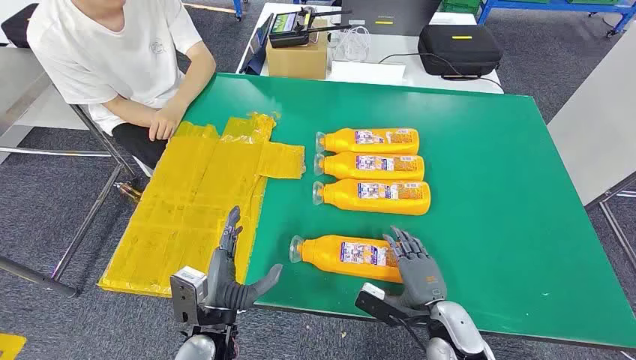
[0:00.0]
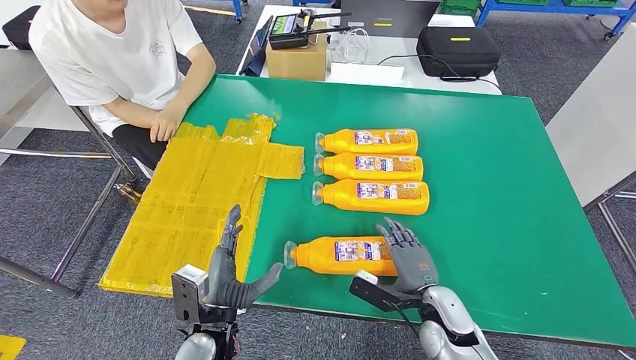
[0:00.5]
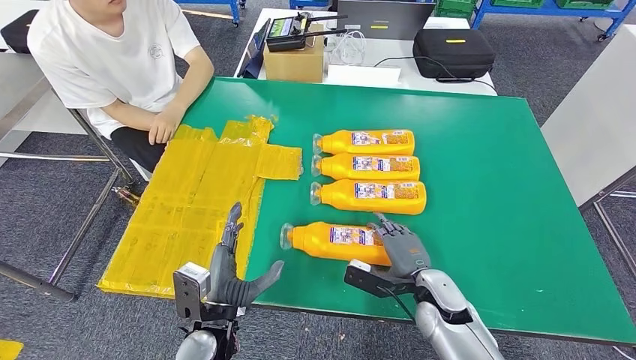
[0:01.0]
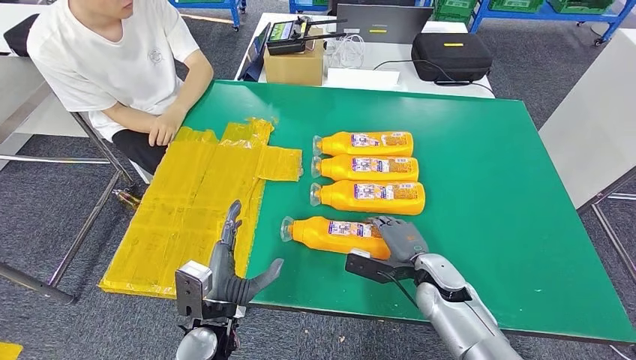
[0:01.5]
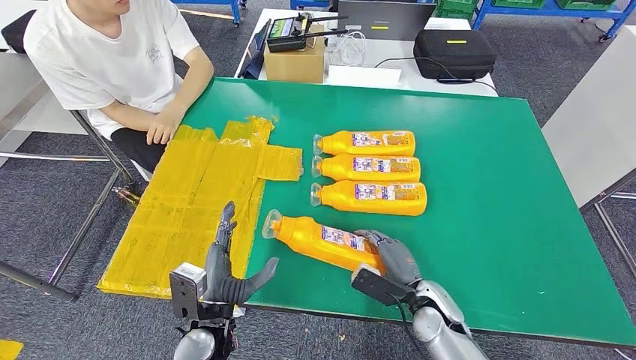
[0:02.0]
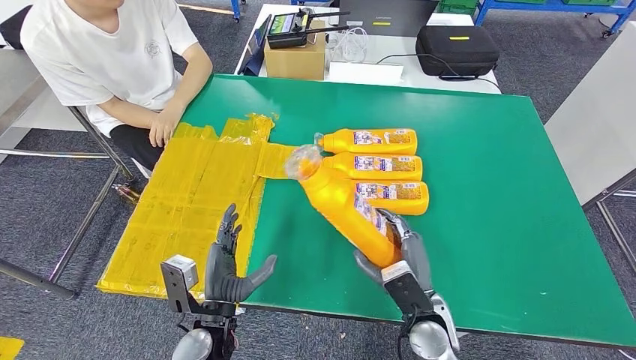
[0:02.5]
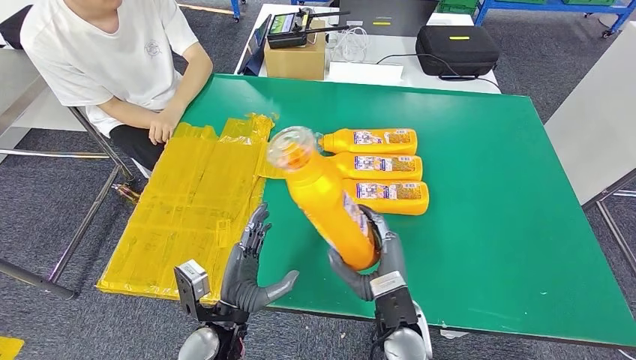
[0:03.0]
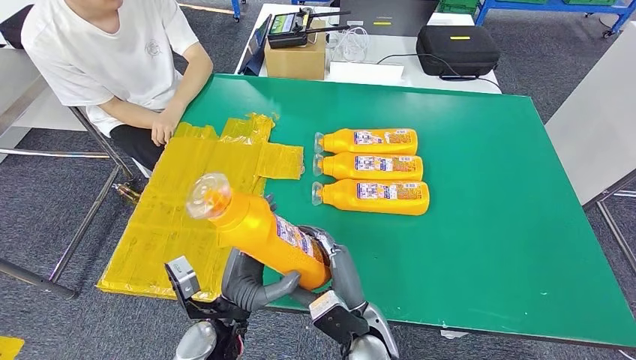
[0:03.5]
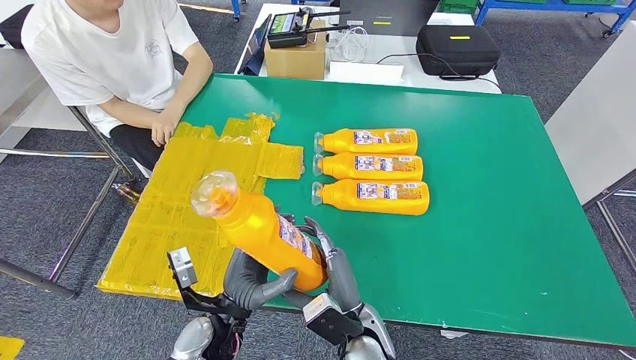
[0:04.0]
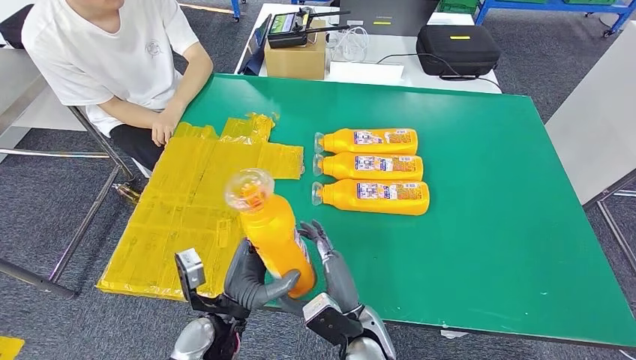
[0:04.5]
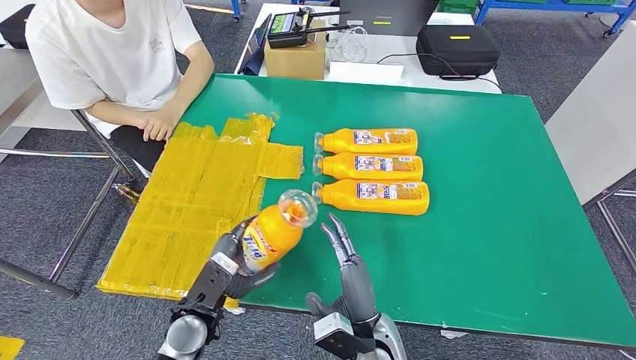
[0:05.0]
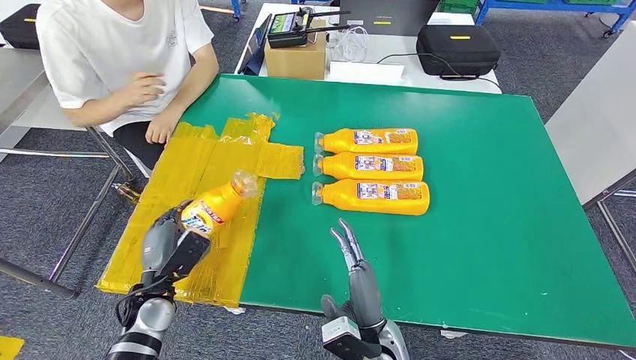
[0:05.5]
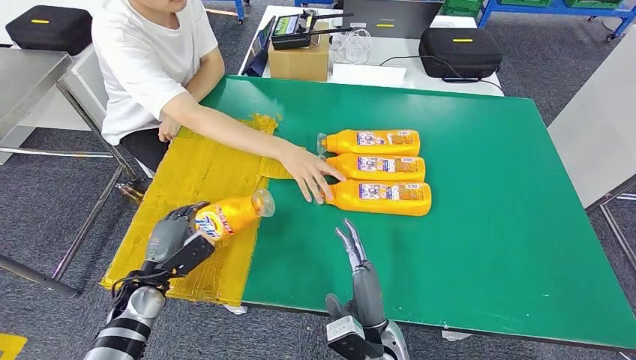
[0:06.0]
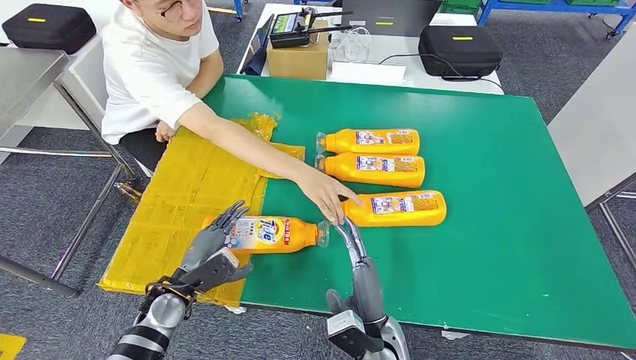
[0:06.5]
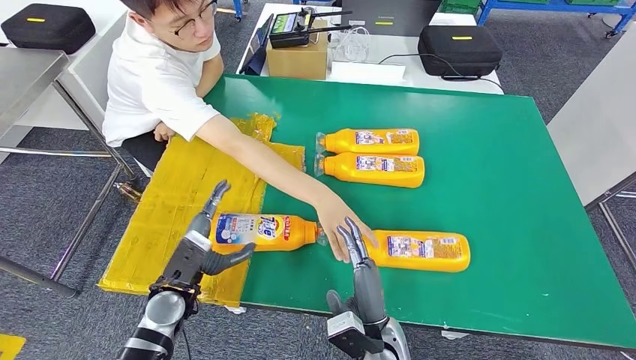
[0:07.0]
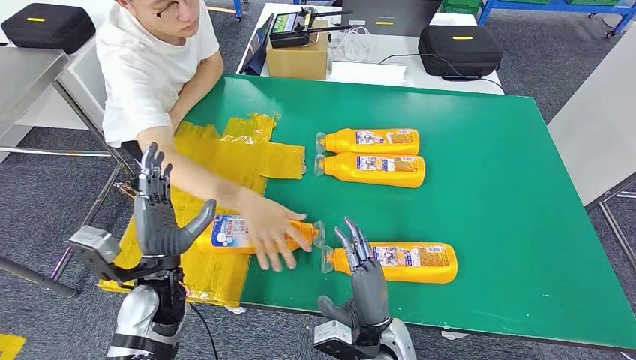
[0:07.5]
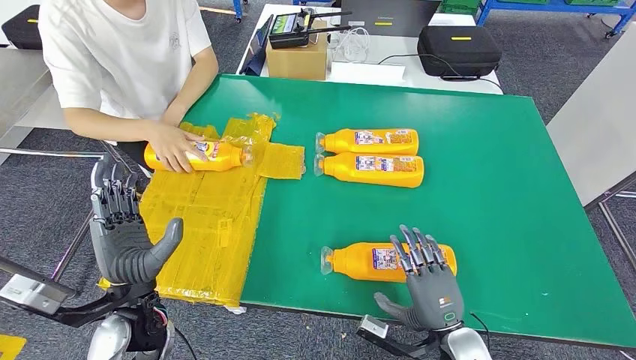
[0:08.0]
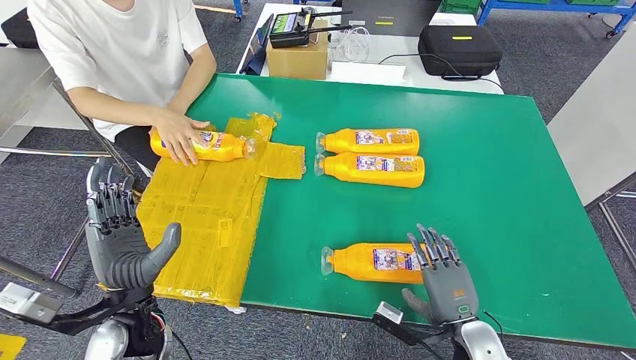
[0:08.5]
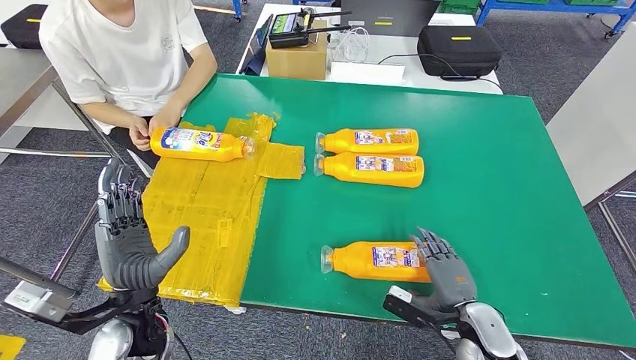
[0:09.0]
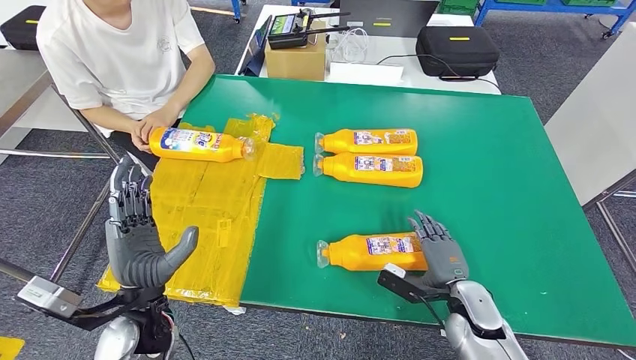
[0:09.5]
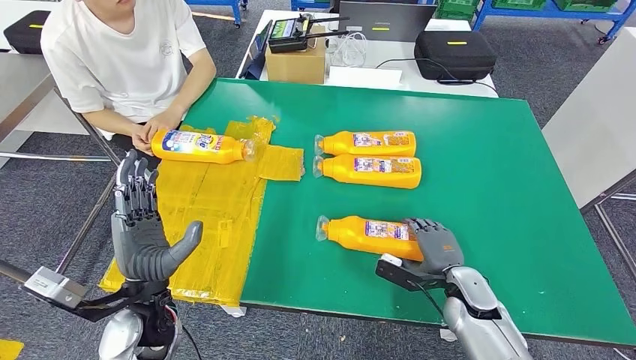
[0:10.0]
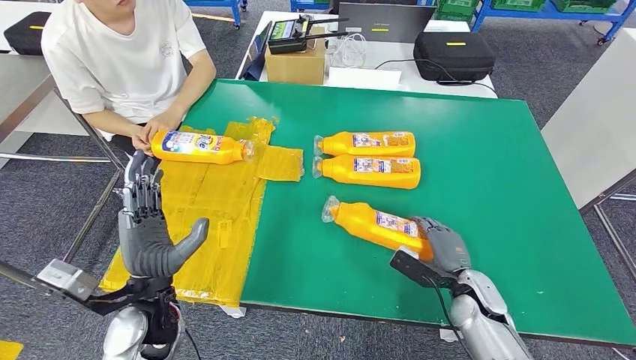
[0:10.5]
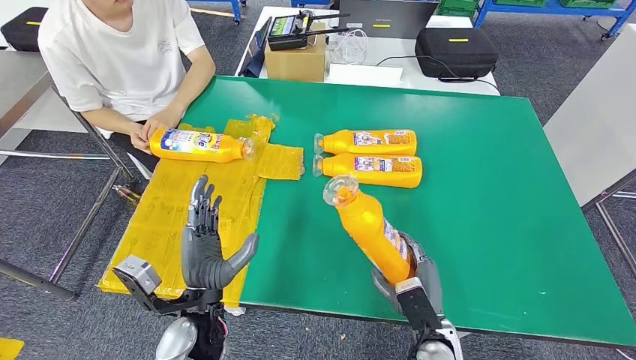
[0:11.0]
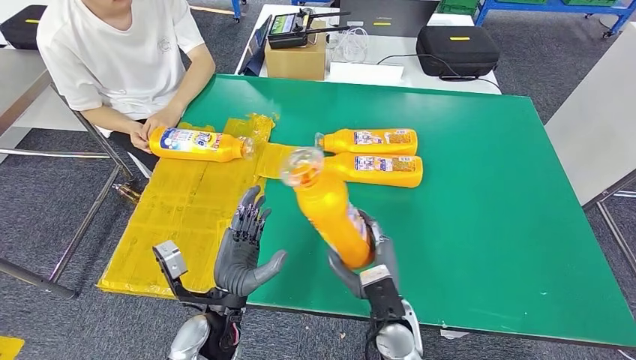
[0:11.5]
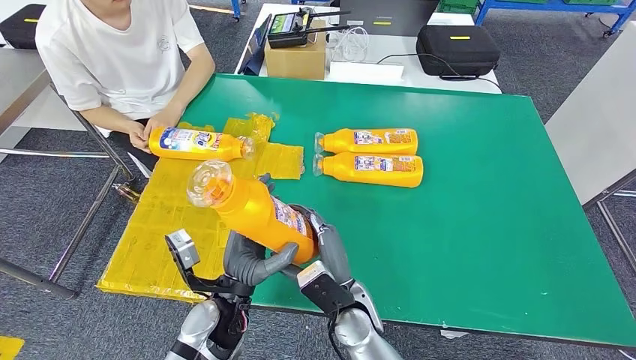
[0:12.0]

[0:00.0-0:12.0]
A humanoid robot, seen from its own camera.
Step, 0:00.0 to 0:03.0: Take the fast-moving consumer goods bottle from the table.
Step, 0:03.5 to 0:09.0: Flip the fast-moving consumer goods bottle to the front side.

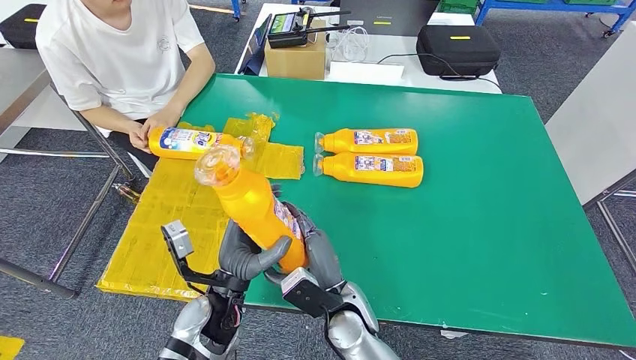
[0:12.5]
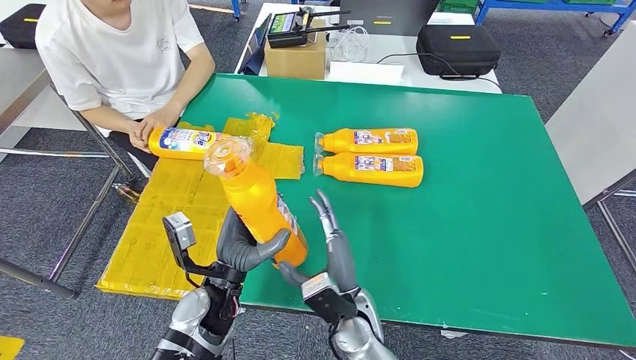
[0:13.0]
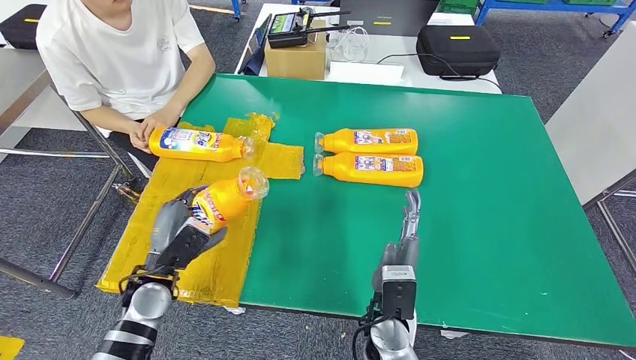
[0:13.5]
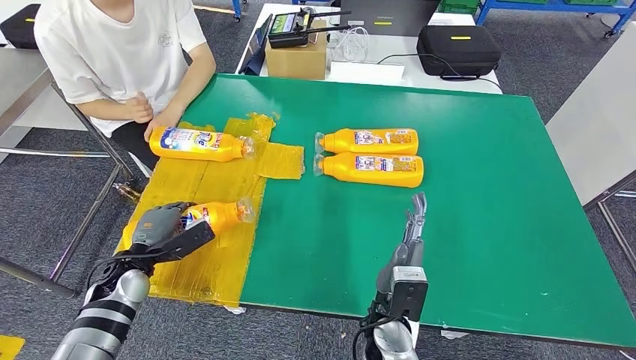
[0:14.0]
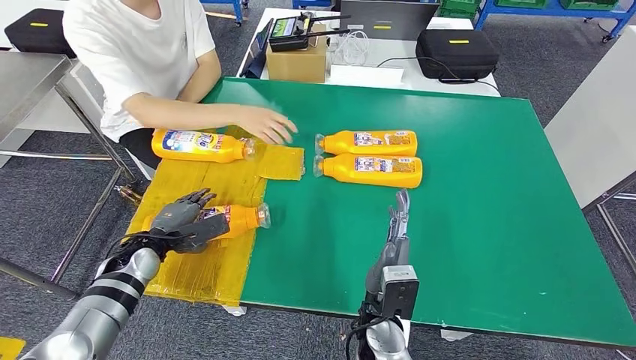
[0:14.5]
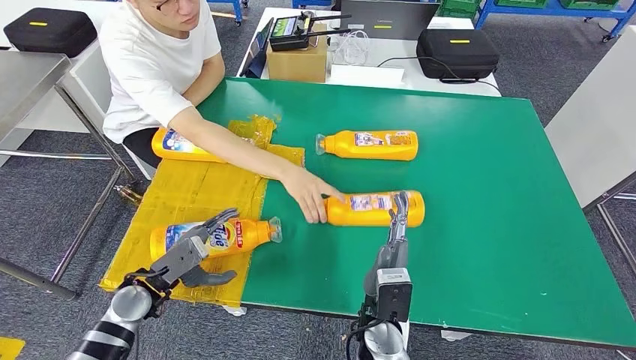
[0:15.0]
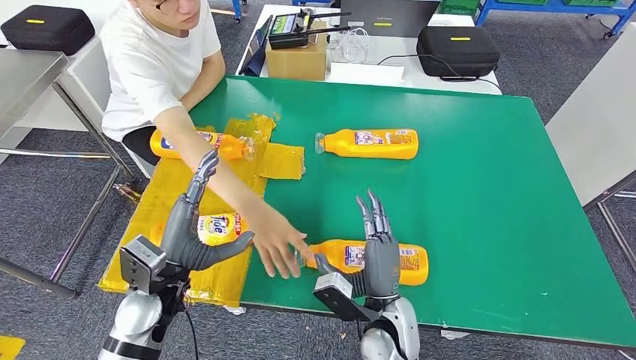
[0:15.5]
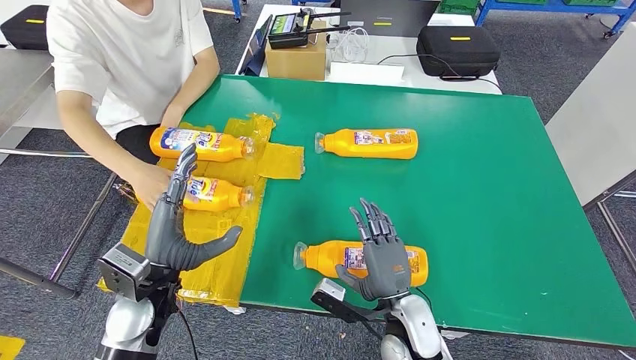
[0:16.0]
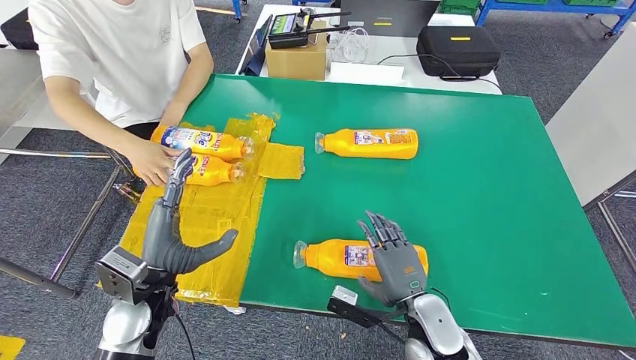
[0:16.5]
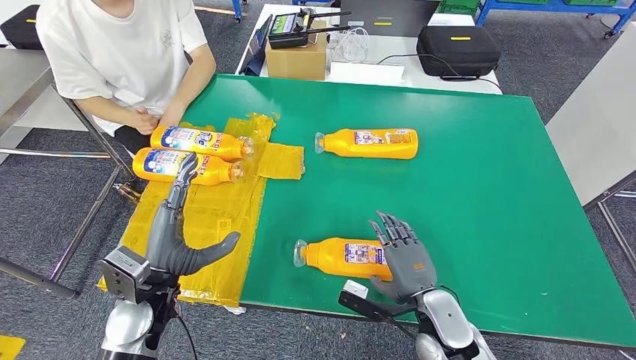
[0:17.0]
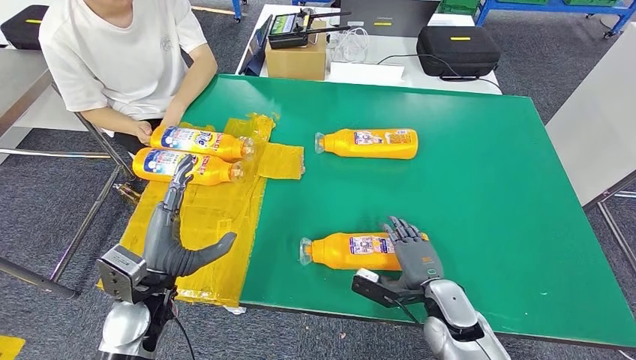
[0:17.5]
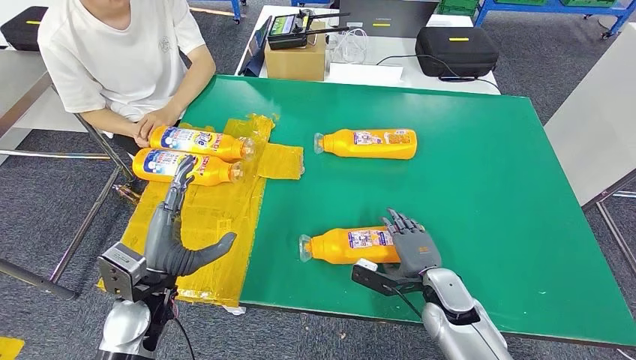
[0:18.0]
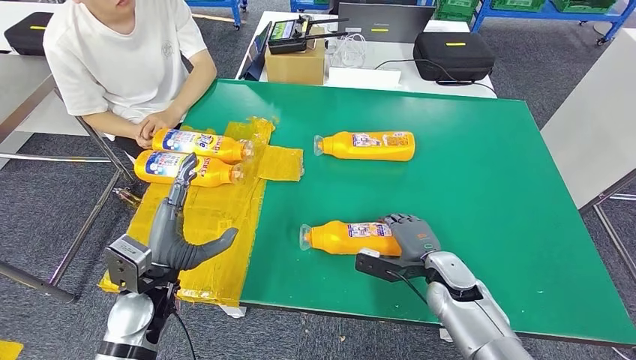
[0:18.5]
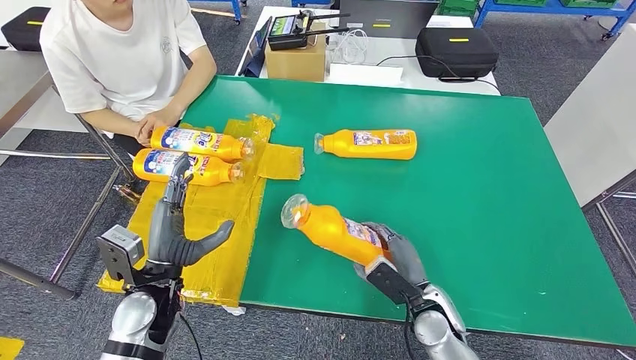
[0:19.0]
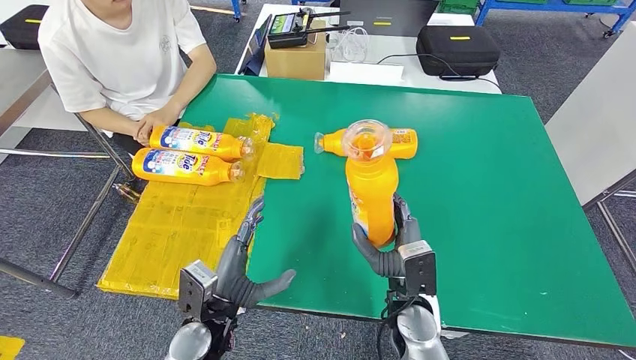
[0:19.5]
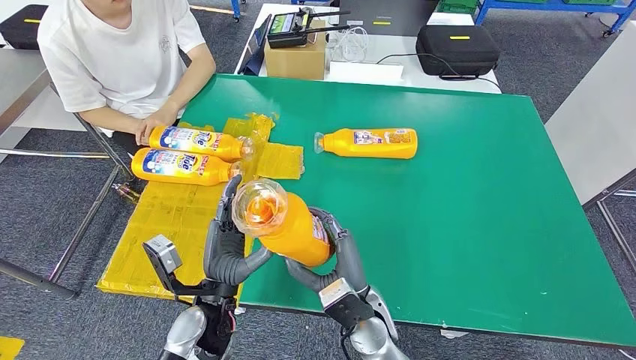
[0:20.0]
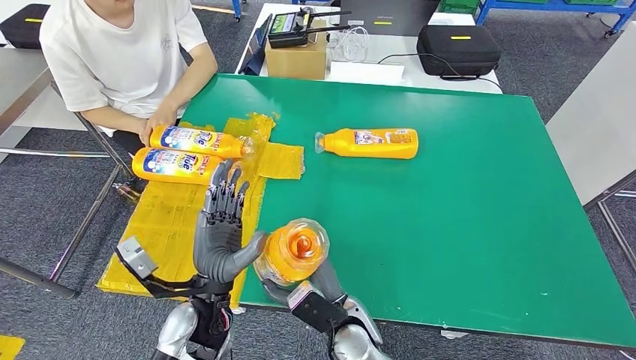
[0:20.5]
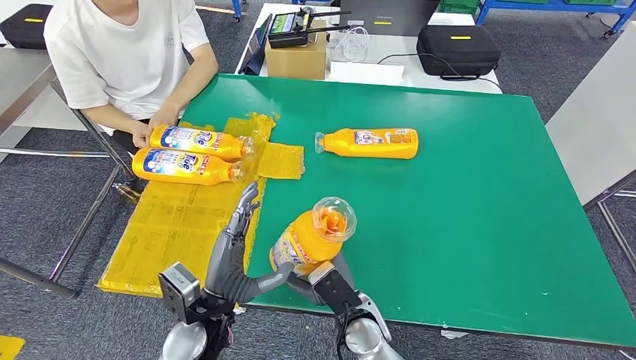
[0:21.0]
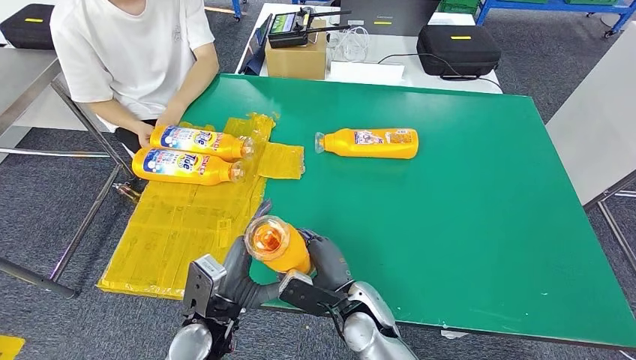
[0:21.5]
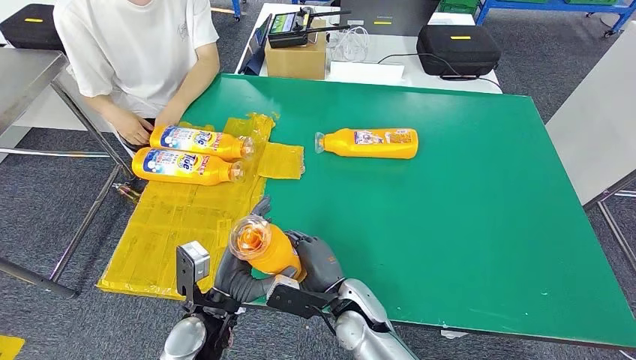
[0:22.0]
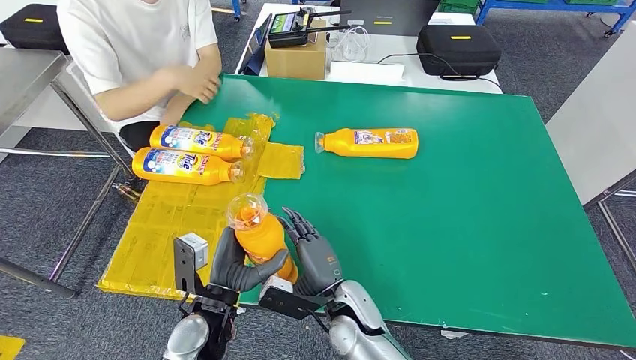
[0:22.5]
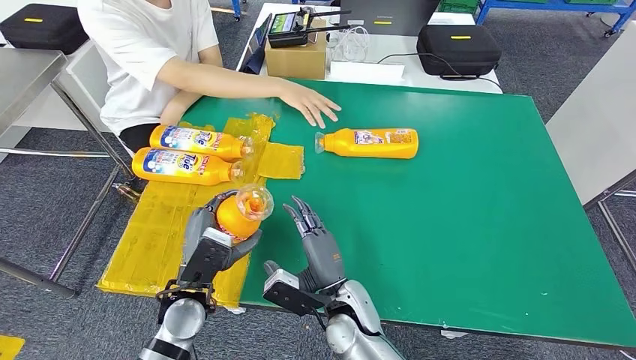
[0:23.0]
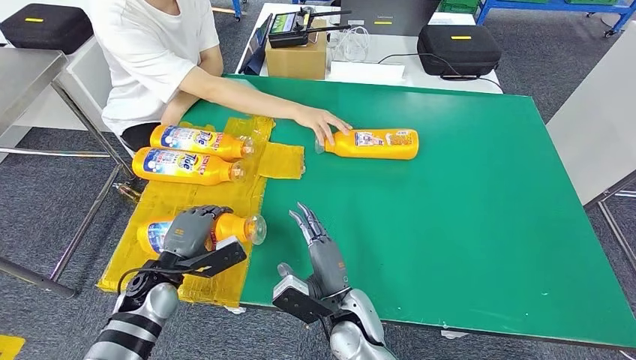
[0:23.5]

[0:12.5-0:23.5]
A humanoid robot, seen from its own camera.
Step, 0:13.0 to 0:16.5: Flip the fast-moving consumer goods bottle to the front side.
Step, 0:17.0 to 0:22.0: Pick up the fast-moving consumer goods bottle from the table.
0:16.0 to 0:18.0: The right hand travels to the right and forward by some 10 cm.
0:18.0 to 0:20.0: The right hand moves to the left, roughly 15 cm. Meanwhile the left hand is displaced to the right by approximately 10 cm.
0:21.5 to 0:23.5: The left hand travels to the left and forward by about 15 cm.
